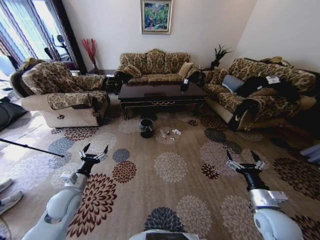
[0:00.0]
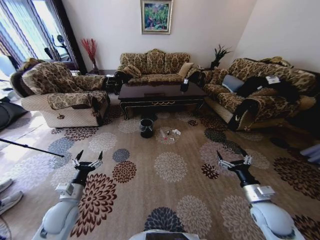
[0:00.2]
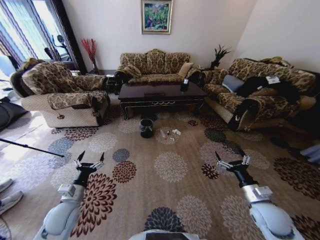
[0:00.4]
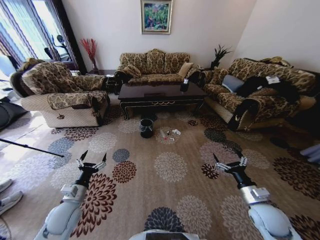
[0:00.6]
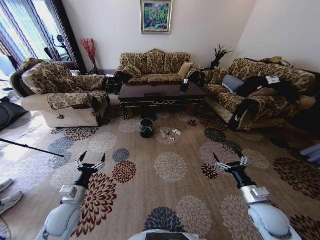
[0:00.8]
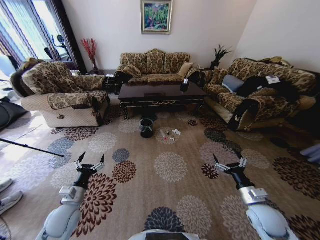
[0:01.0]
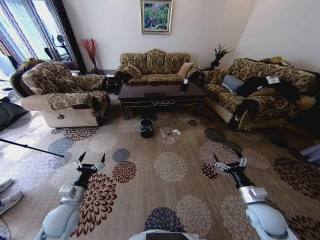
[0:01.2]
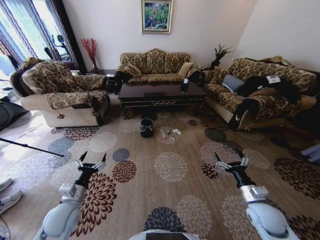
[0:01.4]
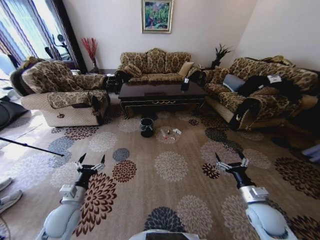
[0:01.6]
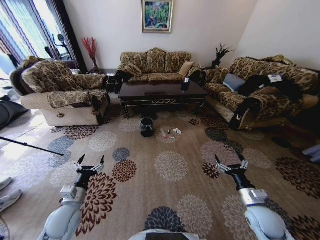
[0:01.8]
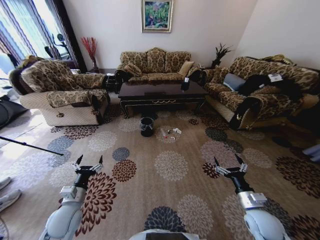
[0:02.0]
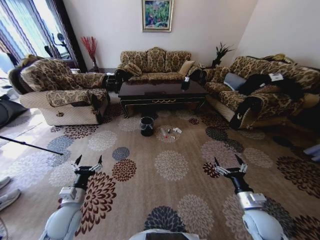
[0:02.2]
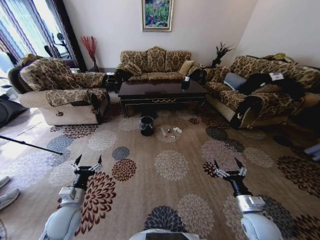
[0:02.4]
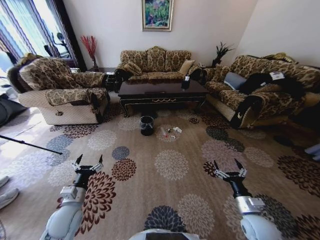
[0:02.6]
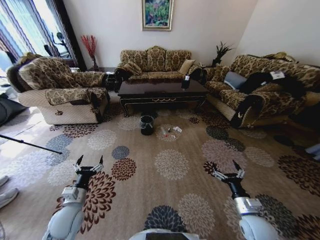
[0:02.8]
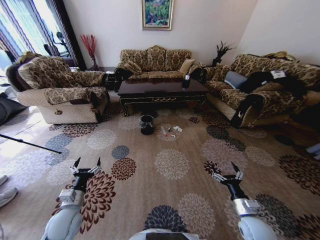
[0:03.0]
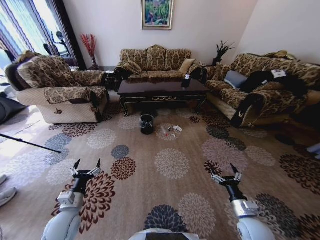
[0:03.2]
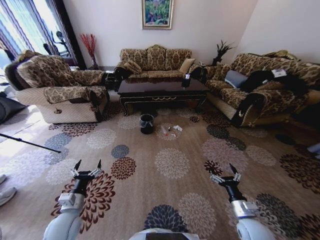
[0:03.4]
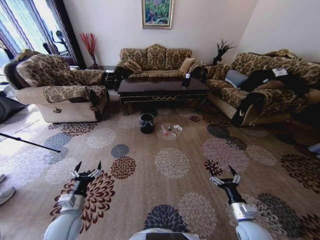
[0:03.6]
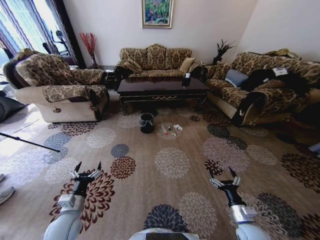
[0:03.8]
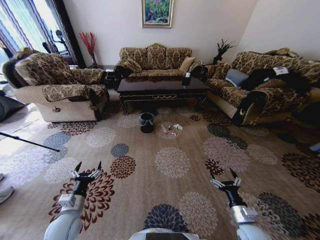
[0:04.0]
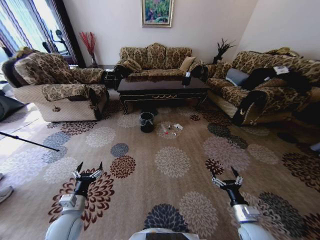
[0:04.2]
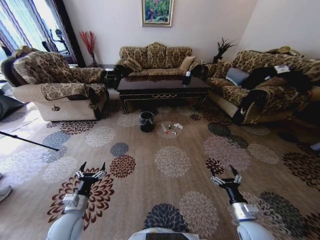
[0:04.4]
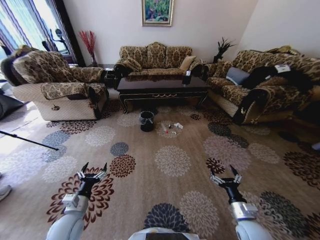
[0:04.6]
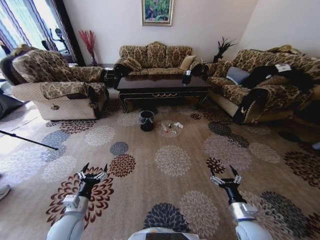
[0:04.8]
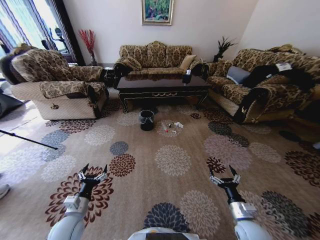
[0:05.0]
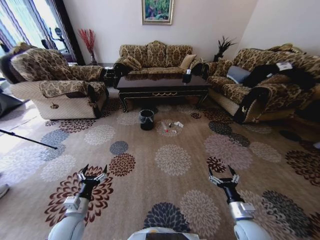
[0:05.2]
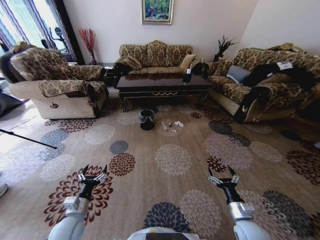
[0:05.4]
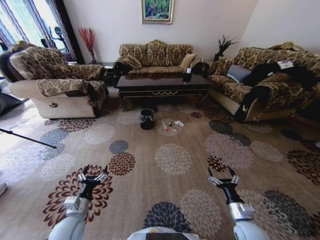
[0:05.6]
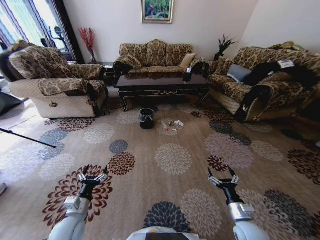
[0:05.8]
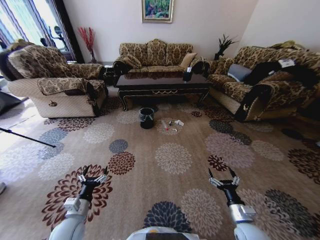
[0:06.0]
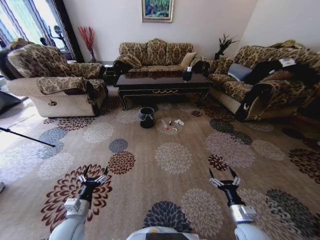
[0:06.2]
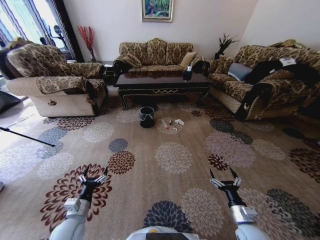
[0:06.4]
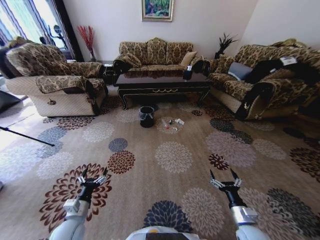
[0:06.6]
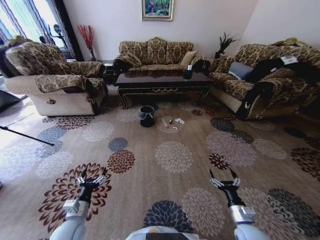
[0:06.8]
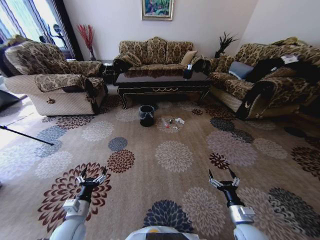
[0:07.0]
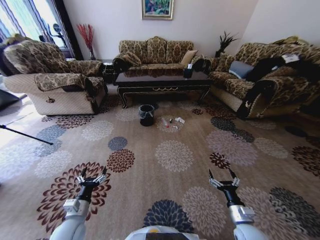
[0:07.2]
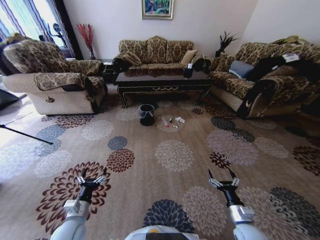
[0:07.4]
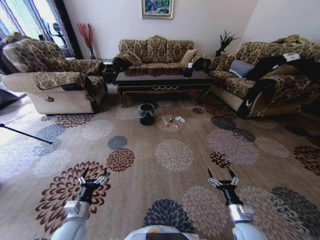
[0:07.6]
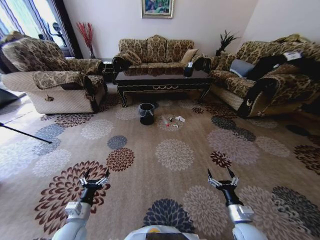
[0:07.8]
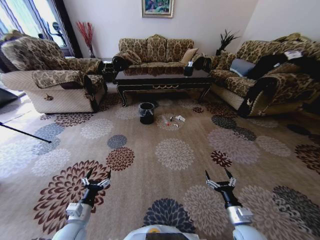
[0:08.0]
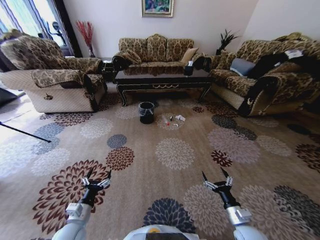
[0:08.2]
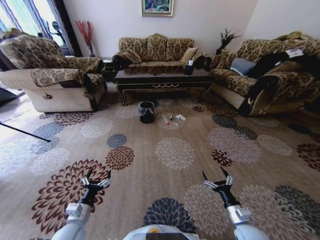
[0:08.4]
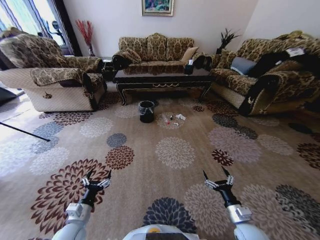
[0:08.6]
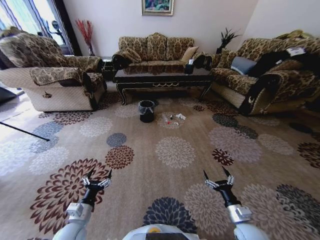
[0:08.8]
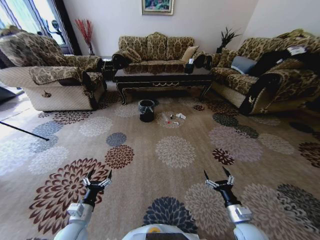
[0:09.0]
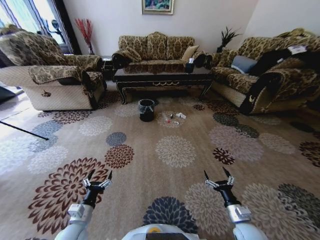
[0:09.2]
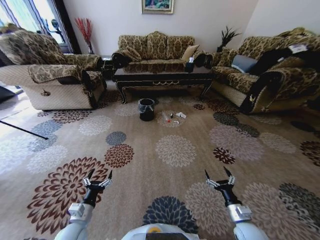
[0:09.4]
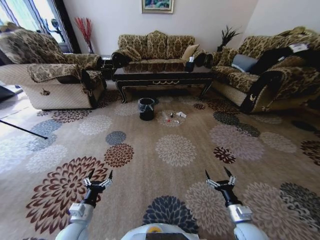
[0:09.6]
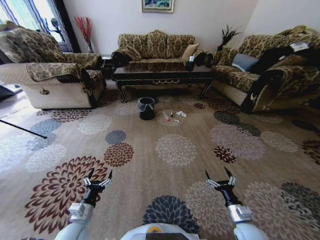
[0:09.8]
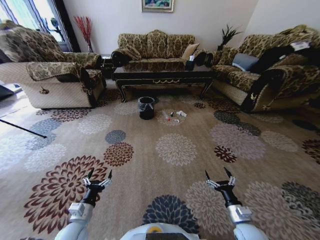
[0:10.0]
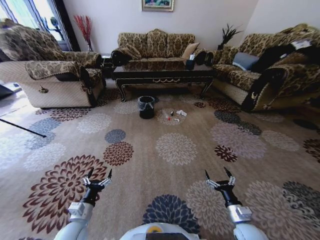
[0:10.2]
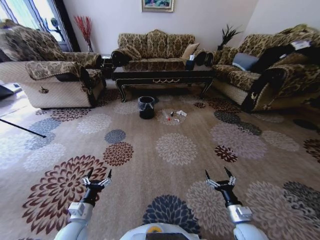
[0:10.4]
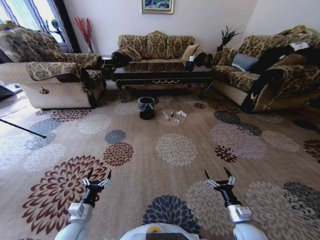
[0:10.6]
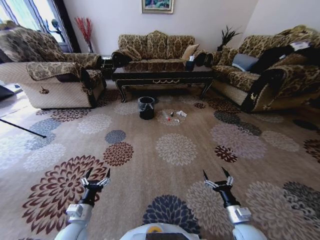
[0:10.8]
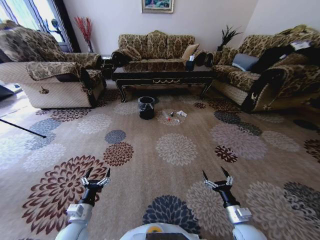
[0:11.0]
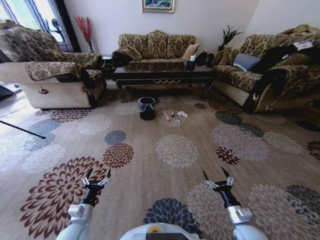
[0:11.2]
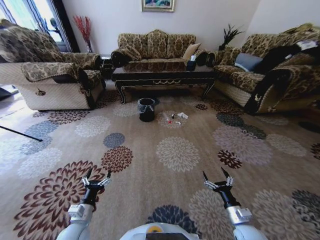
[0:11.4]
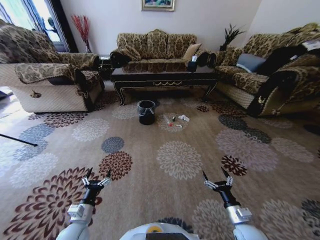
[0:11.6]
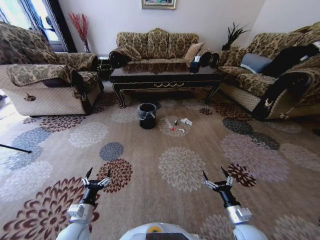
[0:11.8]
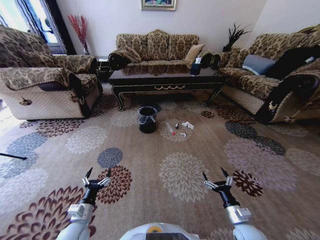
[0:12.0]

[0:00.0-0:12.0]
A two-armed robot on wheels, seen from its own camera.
Task of the whole recording: Move to the front of the table and pick up the trash from the floor, then place it into the trash bin.
0:01.6 to 0:03.0: The right gripper changes place by about 5 cm.

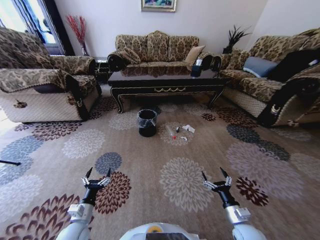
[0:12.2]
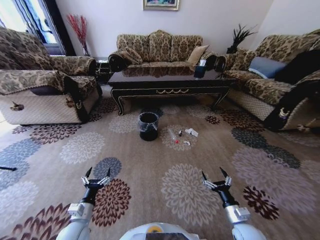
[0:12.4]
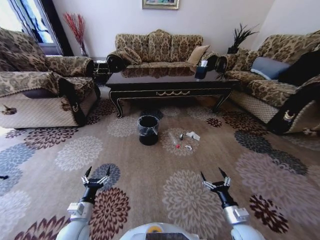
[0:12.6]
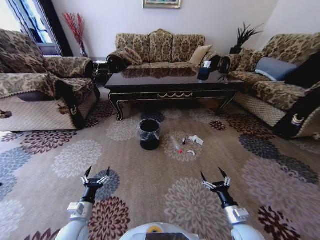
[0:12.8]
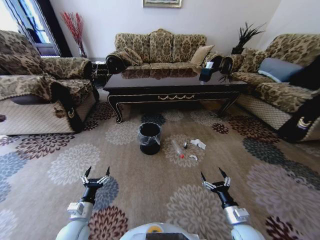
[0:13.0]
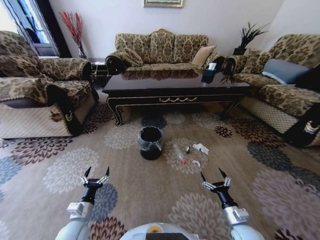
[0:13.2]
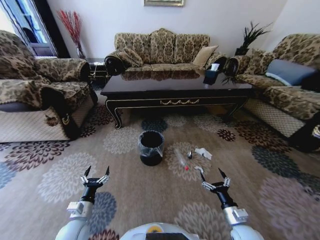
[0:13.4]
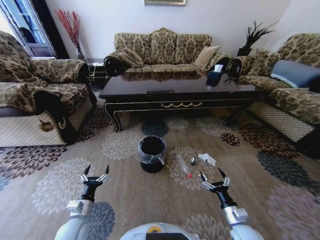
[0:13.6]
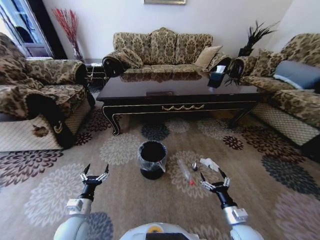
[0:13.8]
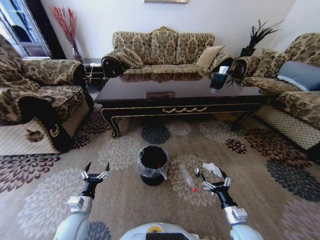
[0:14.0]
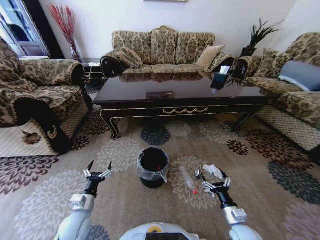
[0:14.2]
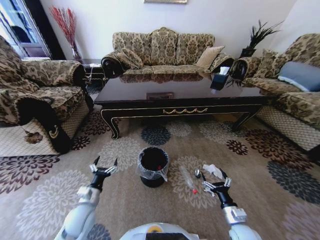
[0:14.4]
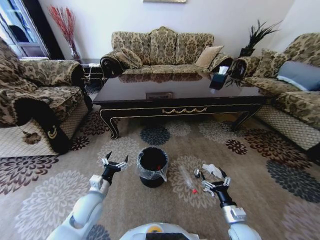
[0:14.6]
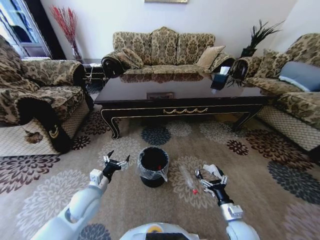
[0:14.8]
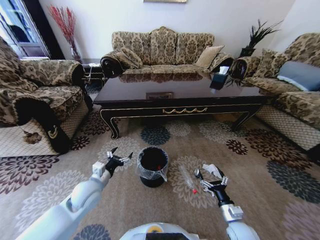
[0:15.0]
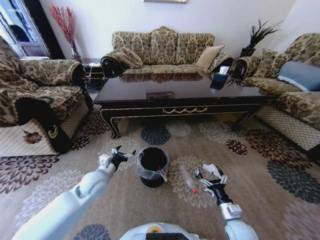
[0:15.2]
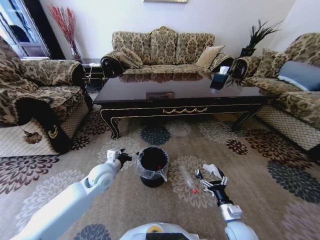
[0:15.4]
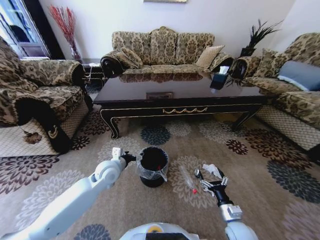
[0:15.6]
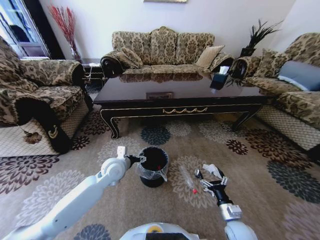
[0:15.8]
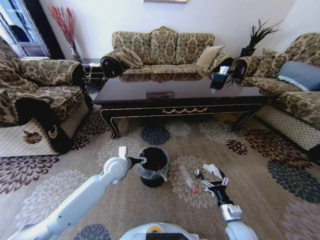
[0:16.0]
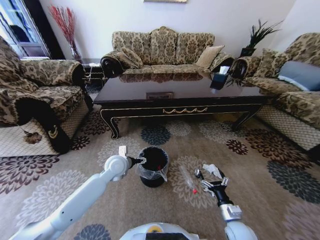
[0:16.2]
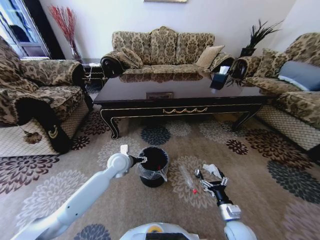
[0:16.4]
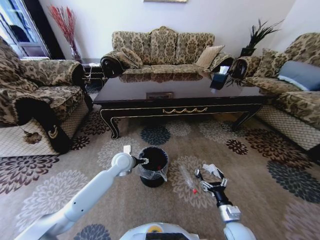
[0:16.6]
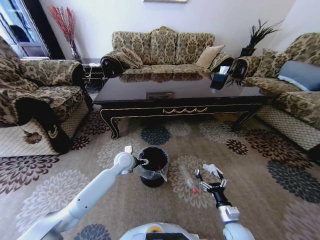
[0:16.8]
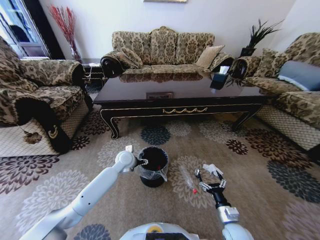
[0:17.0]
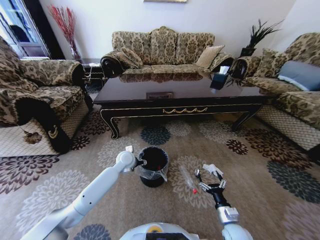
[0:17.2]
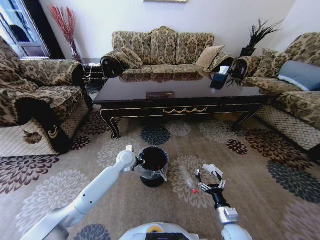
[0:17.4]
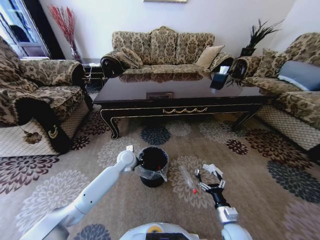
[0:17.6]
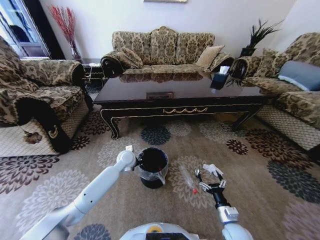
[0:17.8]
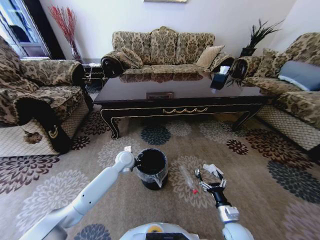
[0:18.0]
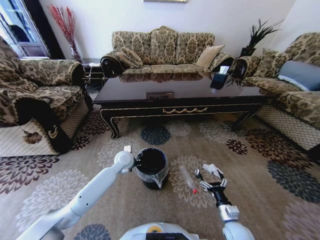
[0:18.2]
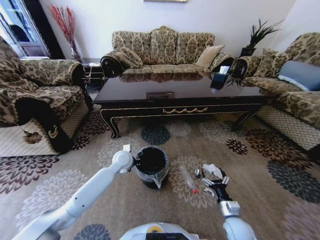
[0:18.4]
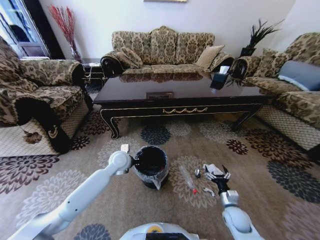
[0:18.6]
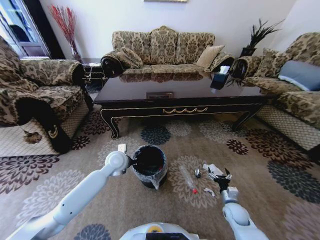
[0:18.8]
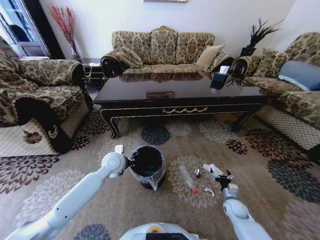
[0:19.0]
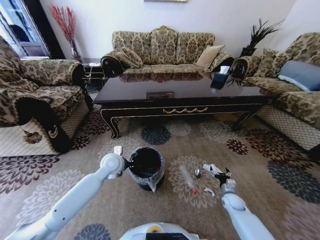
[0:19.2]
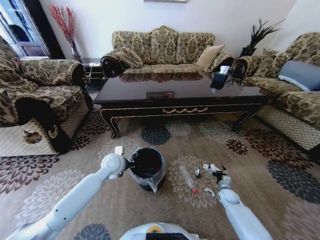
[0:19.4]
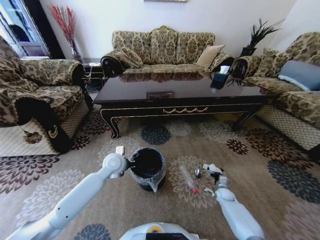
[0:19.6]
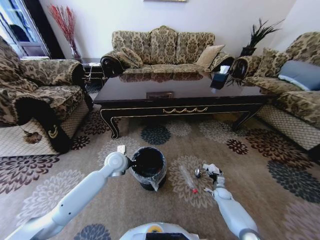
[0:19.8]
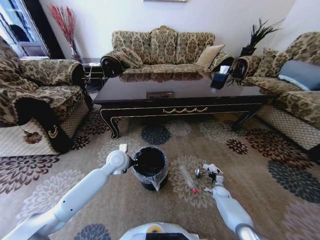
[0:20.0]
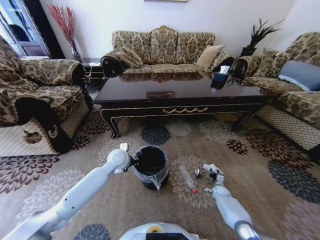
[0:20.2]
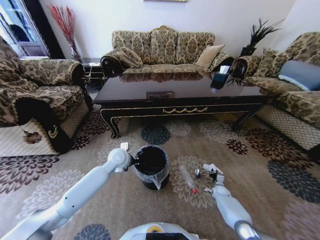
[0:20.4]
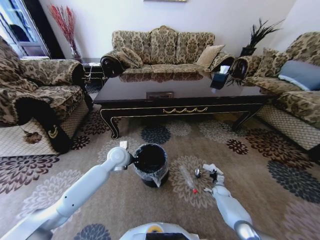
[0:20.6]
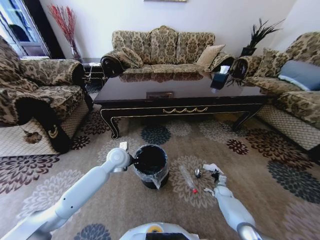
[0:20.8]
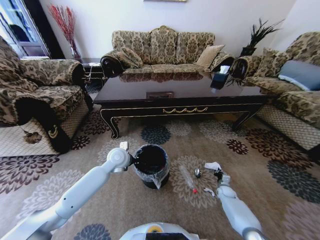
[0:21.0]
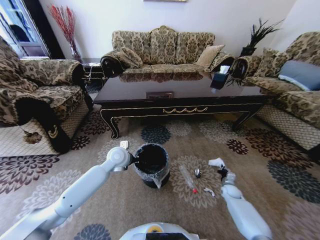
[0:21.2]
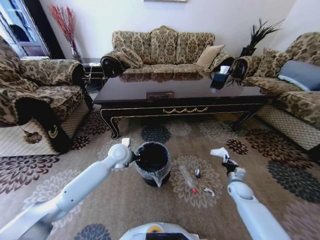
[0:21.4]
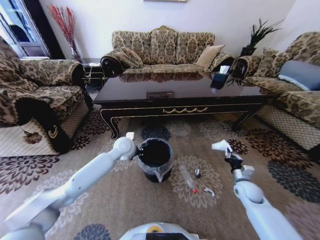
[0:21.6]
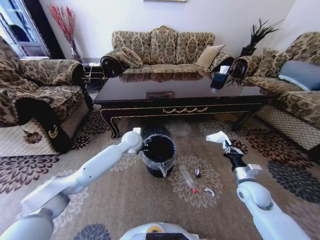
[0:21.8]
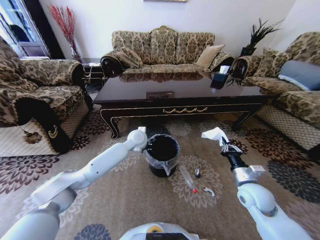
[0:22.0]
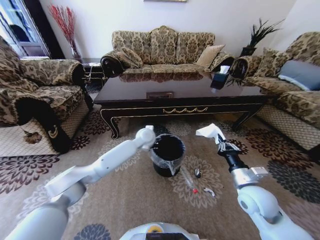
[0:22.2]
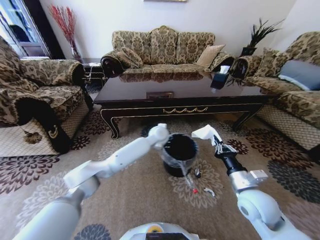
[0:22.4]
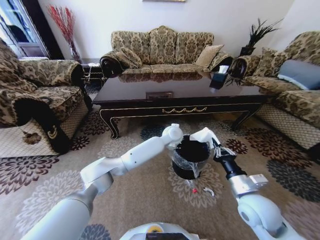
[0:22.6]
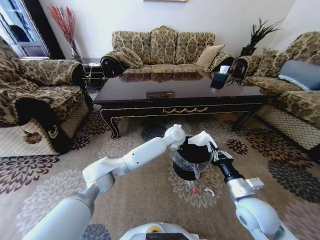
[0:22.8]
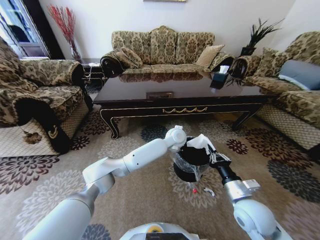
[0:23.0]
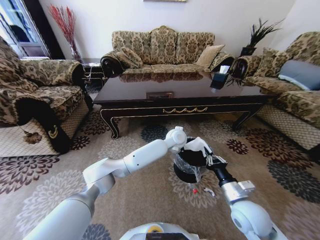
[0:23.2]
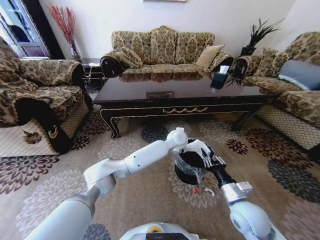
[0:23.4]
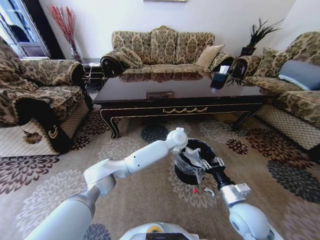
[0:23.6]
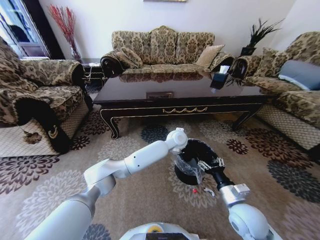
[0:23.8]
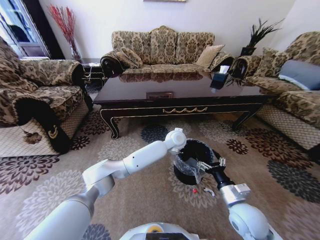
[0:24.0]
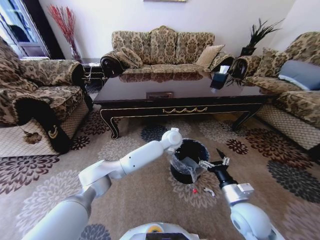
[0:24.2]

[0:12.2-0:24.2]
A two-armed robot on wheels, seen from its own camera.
Task of the whole recording: Move to the front of the table and pick up the trash from the floor, then place it into the trash bin.
0:13.8 to 0:15.2: The left gripper heads forward, upward and to the right, covering some 20 cm.
0:15.2 to 0:16.6: The left gripper is displaced forward and to the right by roughly 15 cm.
0:16.6 to 0:18.2: The left gripper closes.
0:18.2 to 0:19.8: The left gripper moves approximately 5 cm, while the right gripper moves forward, downward and to the right, roughly 25 cm.
0:19.8 to 0:21.2: The right gripper shifts approximately 5 cm upward, and closes up.
0:21.2 to 0:22.6: The right gripper moves upward, to the left and backward, roughly 35 cm. The left gripper is displaced to the right by about 25 cm.
0:22.6 to 0:24.2: The right gripper opens up.
